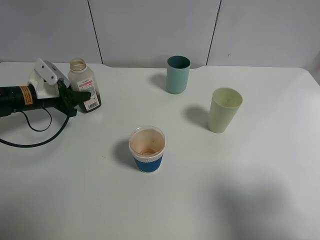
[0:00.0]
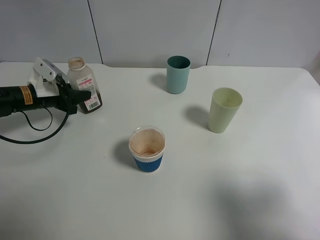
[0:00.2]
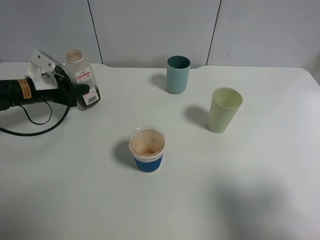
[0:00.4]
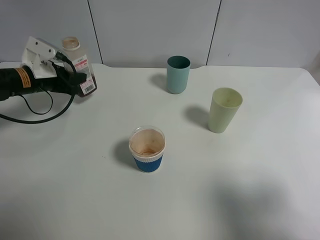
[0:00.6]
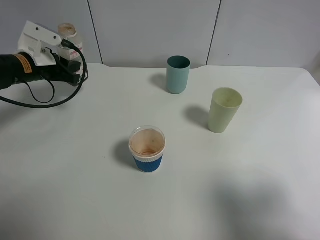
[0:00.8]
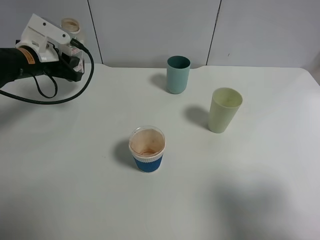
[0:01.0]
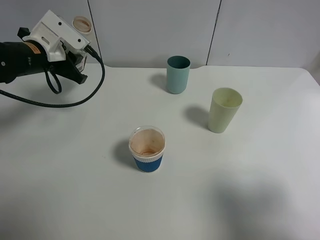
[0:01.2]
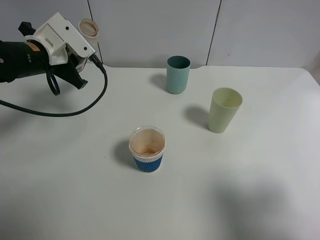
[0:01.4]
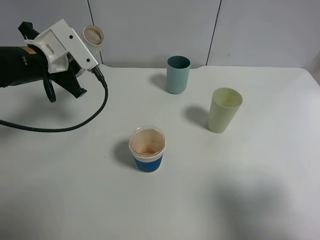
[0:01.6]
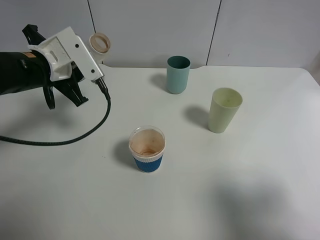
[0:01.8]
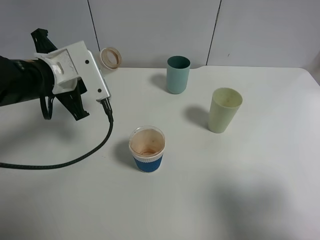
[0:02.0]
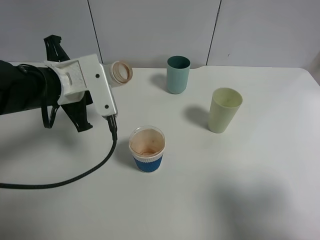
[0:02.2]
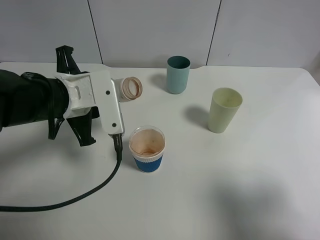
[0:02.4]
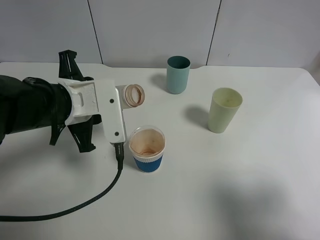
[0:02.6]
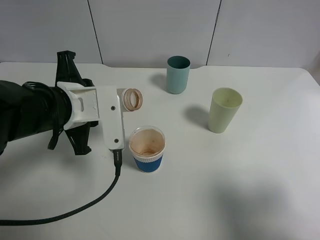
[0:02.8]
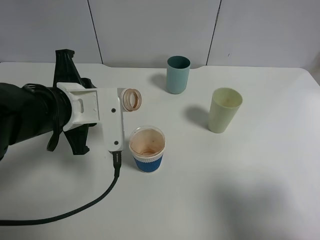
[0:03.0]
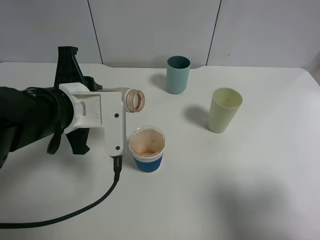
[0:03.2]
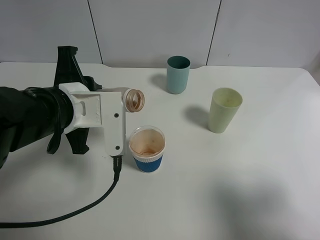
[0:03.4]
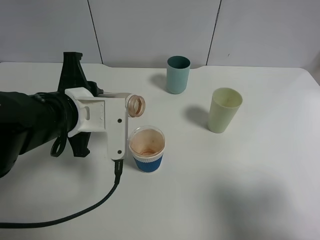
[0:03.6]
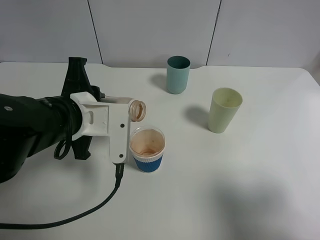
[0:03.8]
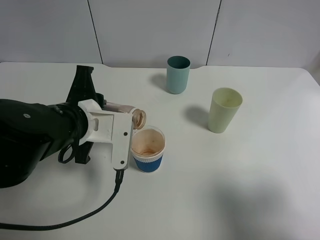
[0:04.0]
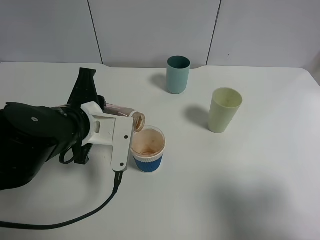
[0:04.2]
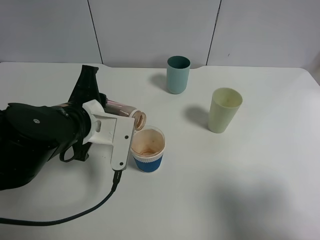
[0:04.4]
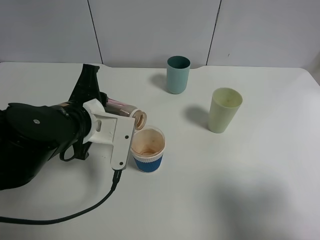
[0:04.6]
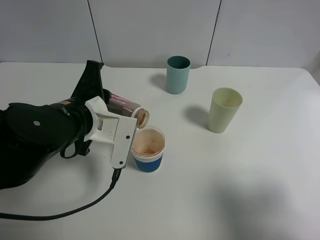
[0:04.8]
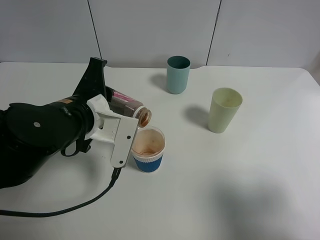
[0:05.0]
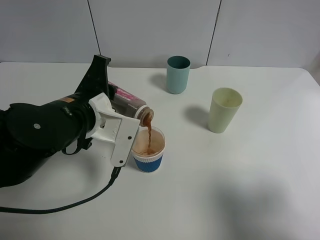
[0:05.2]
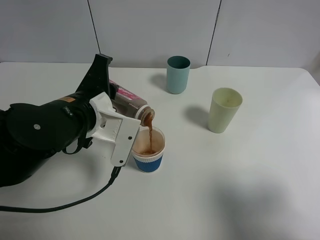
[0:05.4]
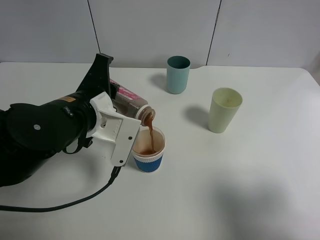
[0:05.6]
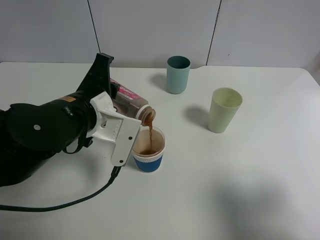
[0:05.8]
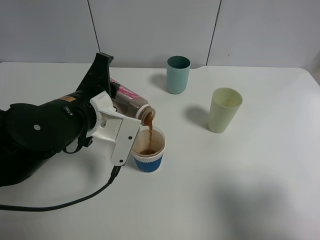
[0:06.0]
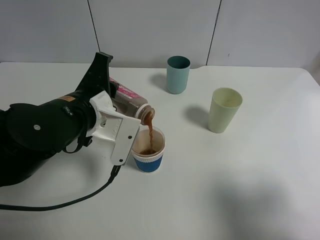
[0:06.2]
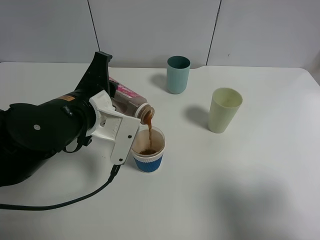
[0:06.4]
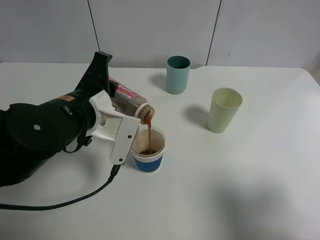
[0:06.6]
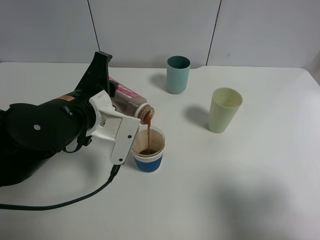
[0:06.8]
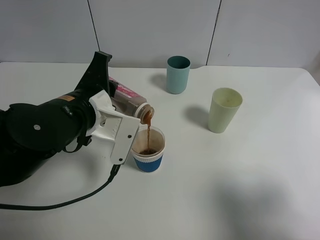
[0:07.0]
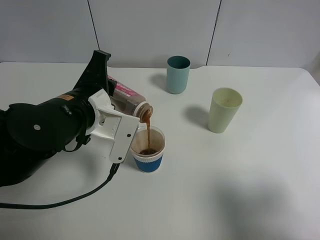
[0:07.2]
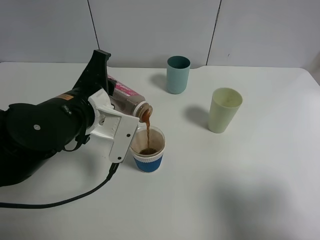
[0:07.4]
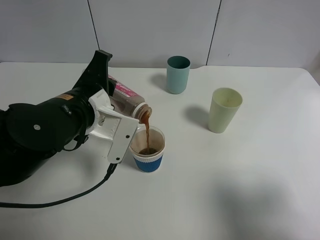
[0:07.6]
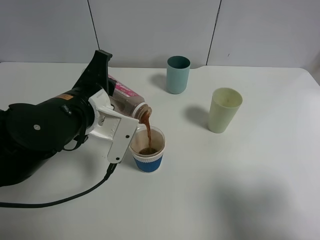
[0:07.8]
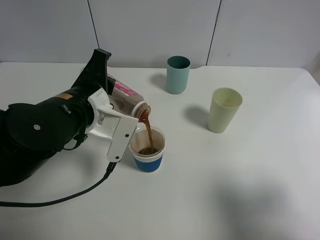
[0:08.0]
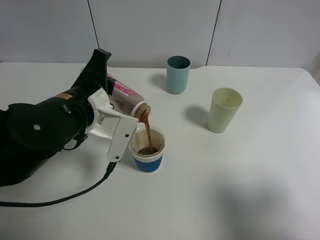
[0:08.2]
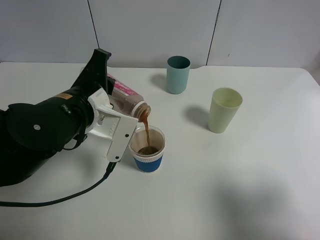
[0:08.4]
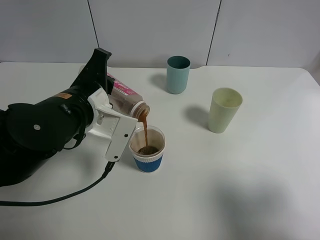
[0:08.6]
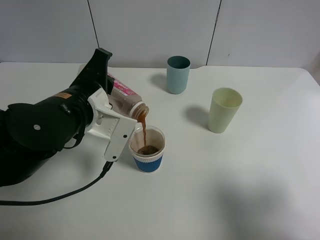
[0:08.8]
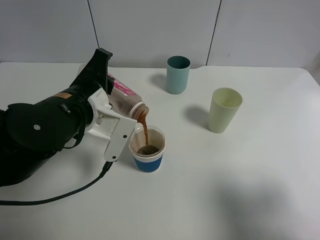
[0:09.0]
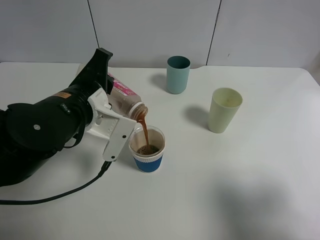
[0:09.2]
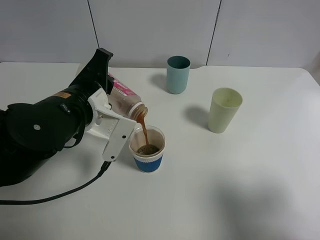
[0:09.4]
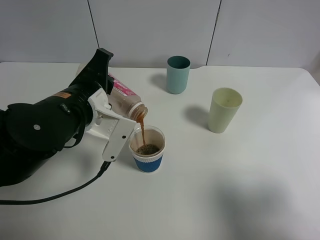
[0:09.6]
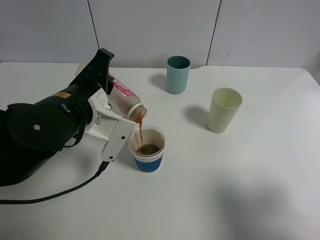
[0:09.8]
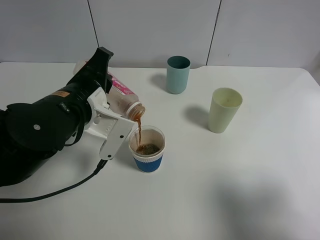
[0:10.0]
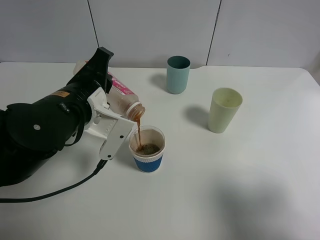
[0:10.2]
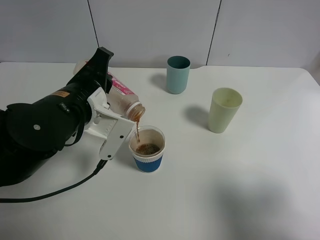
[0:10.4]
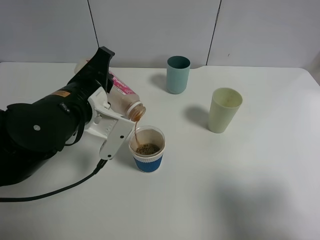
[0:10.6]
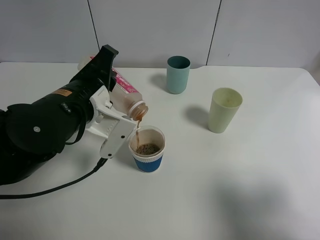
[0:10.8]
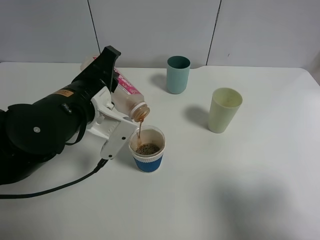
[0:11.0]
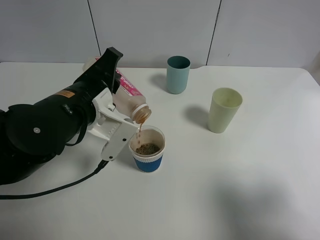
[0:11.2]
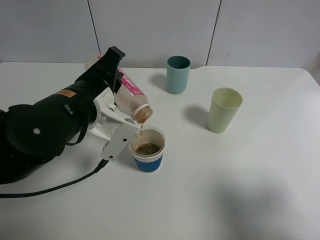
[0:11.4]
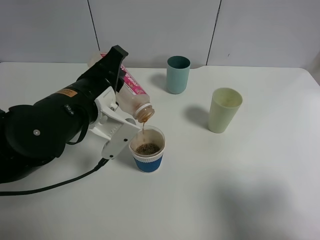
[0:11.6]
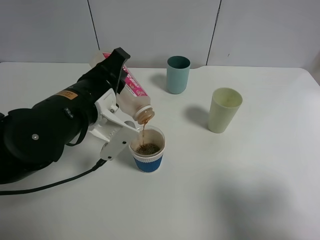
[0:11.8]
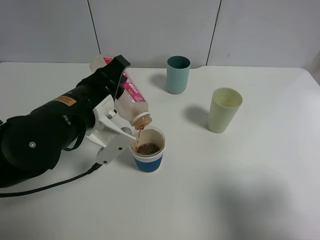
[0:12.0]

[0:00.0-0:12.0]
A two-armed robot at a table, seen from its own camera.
Task of the whole recording: use a gripper to hold the bottle of the drink and pour it into a random cup.
0:00.0 to 0:01.6: The left gripper moves upward, to the right and backward, roughly 15 cm.
0:01.6 to 0:03.0: The left gripper heads backward and to the right, covering roughly 15 cm.
0:03.0 to 0:04.4: The grippers make only small movements.
0:04.4 to 0:06.0: There are only small adjustments of the grippers.
0:06.0 to 0:07.6: Both grippers stay about where they are.
0:07.6 to 0:09.0: The two grippers keep their place.
0:09.0 to 0:10.4: Both grippers stay put.
0:10.4 to 0:12.0: The grippers stay close to where they were, moving slightly.

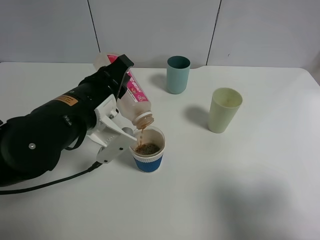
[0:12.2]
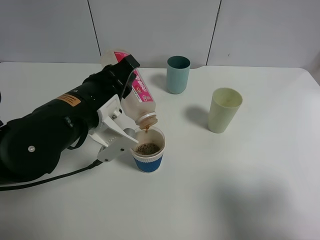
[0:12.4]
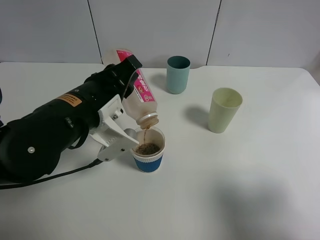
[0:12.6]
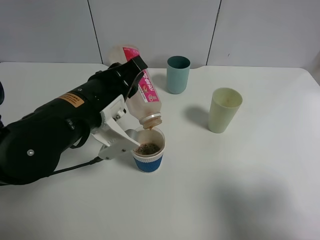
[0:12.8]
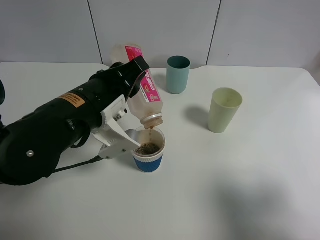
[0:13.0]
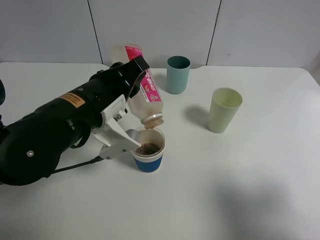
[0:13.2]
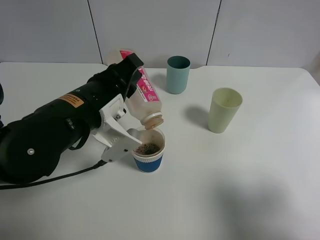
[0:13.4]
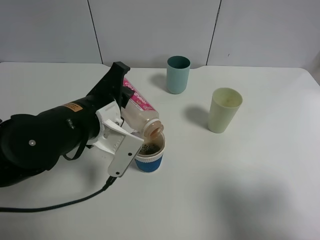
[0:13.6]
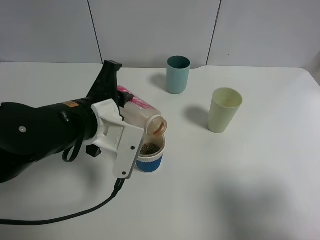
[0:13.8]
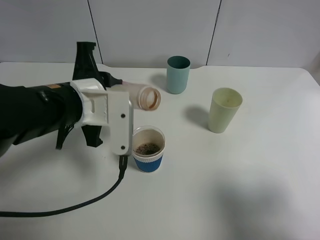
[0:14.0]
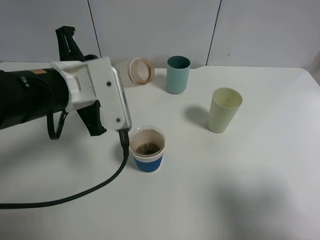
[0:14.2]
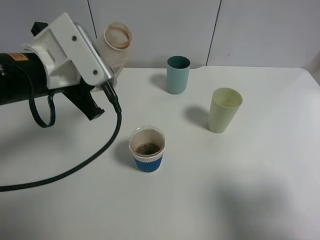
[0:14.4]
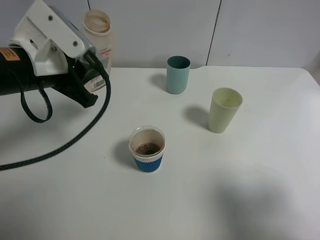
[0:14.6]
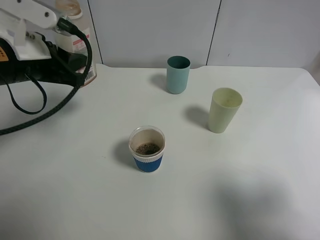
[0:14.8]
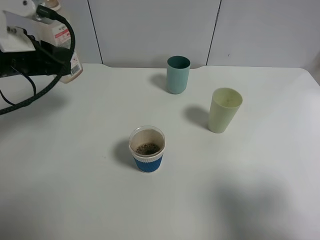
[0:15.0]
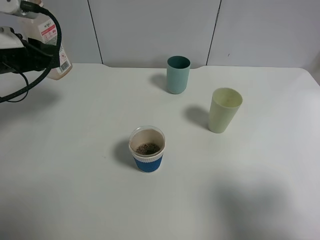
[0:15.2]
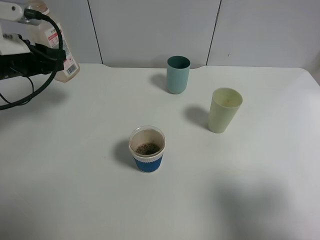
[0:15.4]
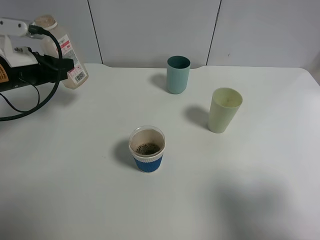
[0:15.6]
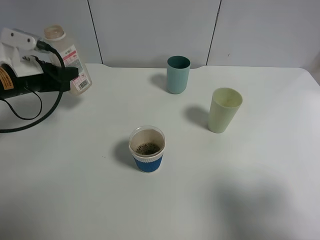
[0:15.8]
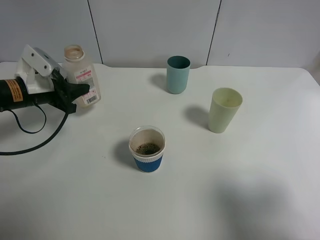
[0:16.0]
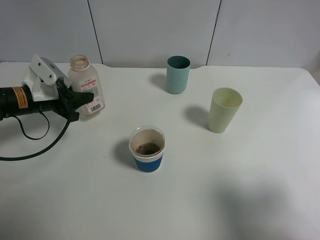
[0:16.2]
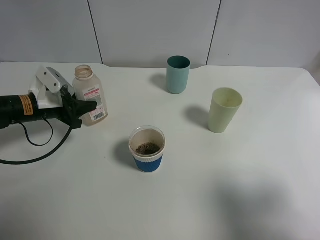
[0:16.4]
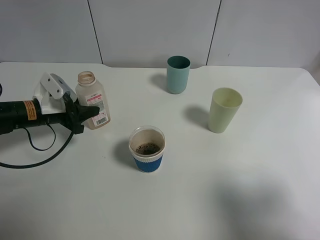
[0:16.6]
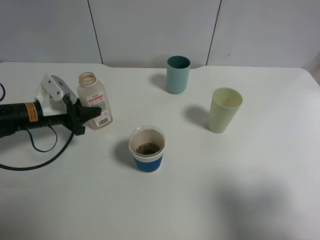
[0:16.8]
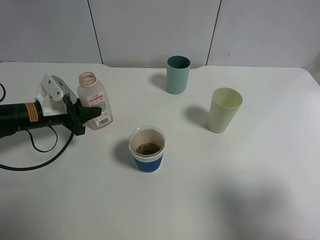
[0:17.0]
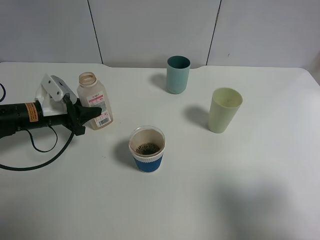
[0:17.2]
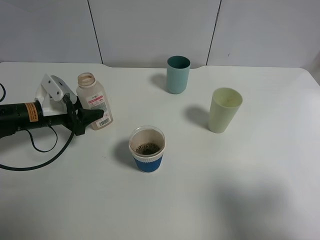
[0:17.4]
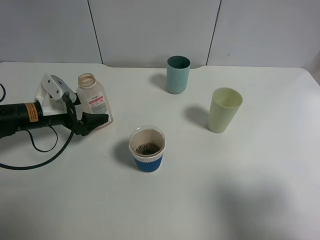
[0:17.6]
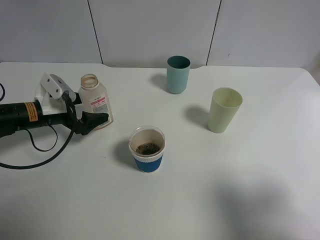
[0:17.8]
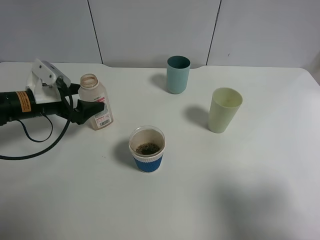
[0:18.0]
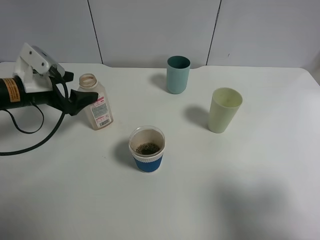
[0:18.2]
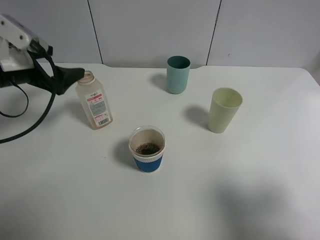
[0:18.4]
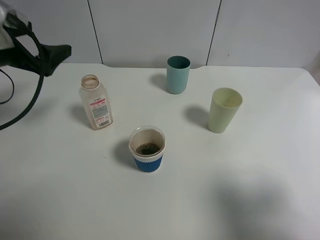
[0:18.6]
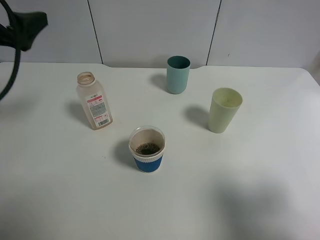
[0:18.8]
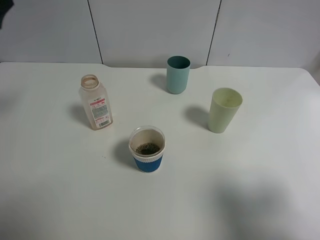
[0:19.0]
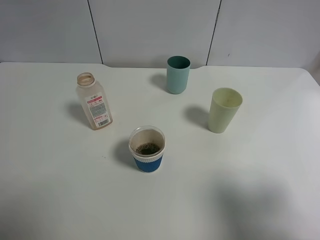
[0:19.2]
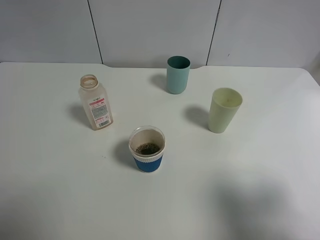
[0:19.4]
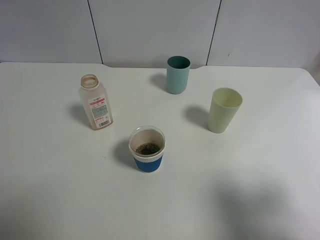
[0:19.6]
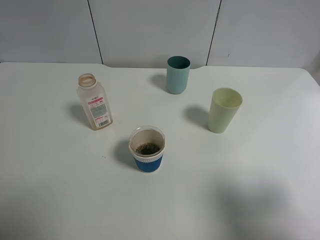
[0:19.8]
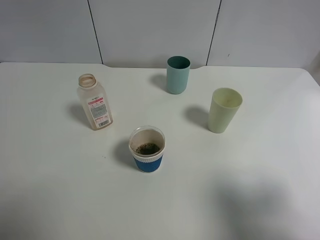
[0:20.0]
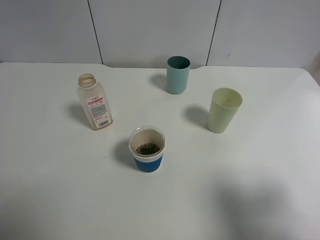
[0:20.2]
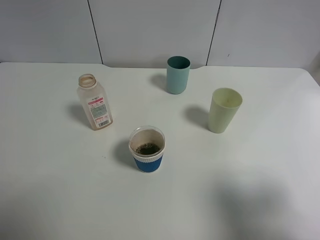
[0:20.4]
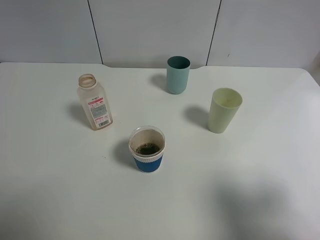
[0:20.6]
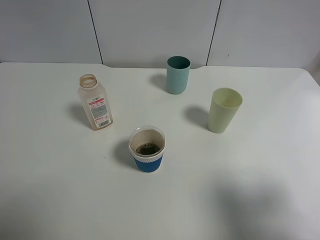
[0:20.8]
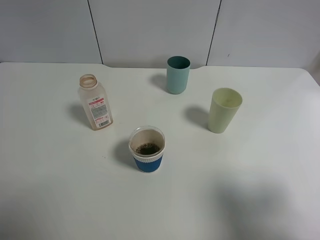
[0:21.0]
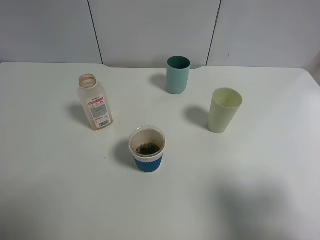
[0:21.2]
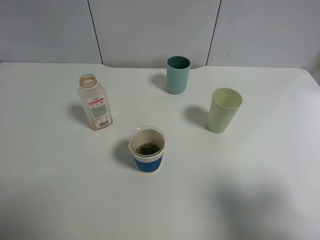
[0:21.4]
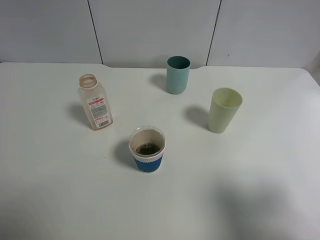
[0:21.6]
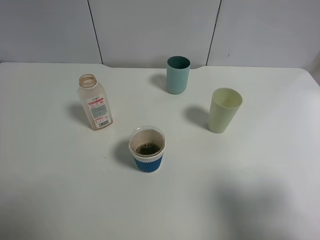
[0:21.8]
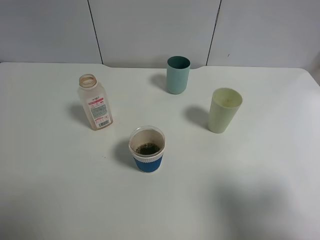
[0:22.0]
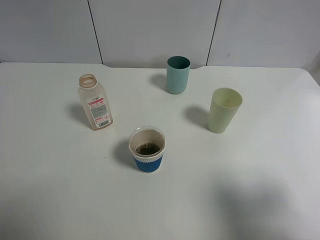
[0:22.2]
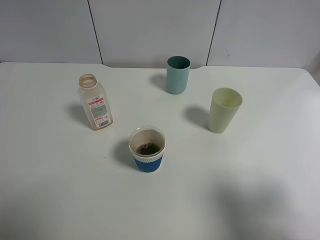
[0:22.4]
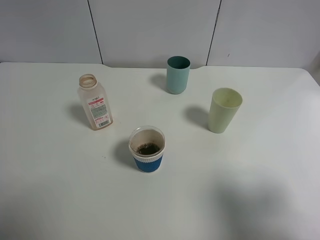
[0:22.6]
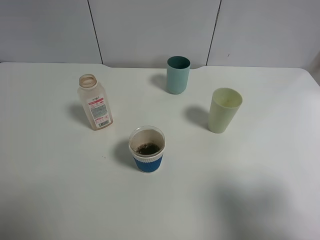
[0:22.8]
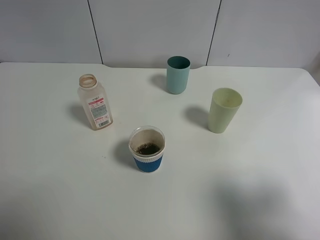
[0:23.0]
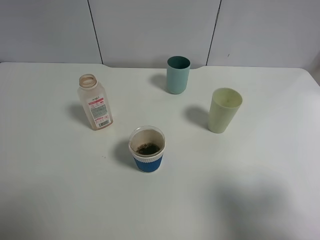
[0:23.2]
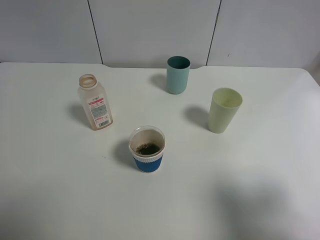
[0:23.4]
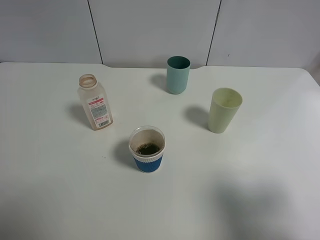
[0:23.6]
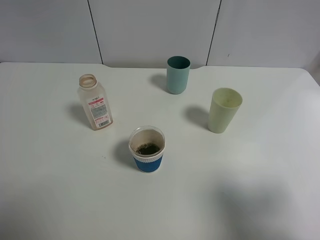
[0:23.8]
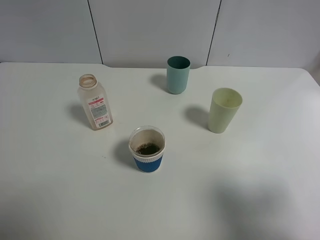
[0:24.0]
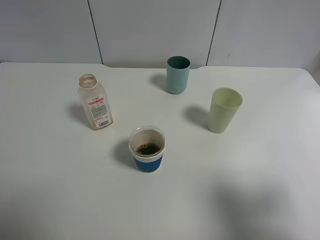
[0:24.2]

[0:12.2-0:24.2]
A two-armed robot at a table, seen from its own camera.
Task of the whole recording: use a gripper to hold the bottle of the drink and pour it into a random cup.
Step, 0:14.2 to 0:18.2: Place the cranberry juice bottle on the table with the left gripper.
0:13.8 to 0:15.2: The left gripper travels to the left and forward by roughly 15 cm.
0:15.2 to 0:16.6: The left gripper travels downward by roughly 15 cm.
0:16.6 to 0:18.2: The left gripper heads upward, covering some 5 cm, and opens.
0:18.2 to 0:19.8: The left gripper travels upward and backward by roughly 35 cm.
0:22.6 to 0:24.2: The two grippers keep their place.
